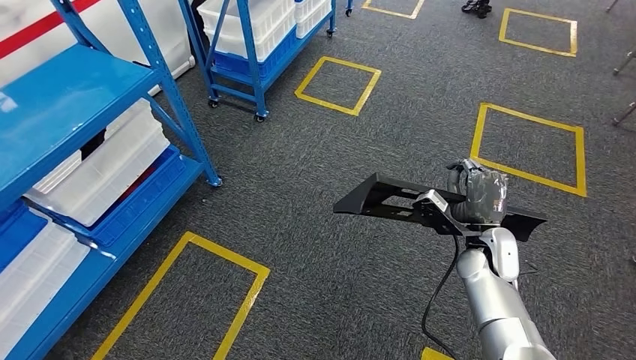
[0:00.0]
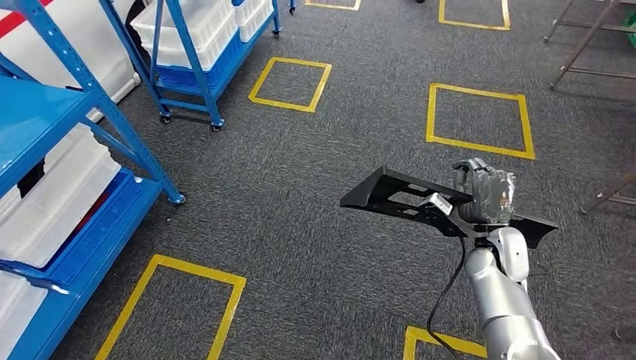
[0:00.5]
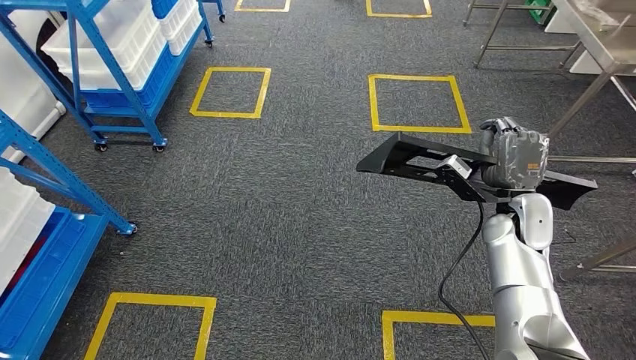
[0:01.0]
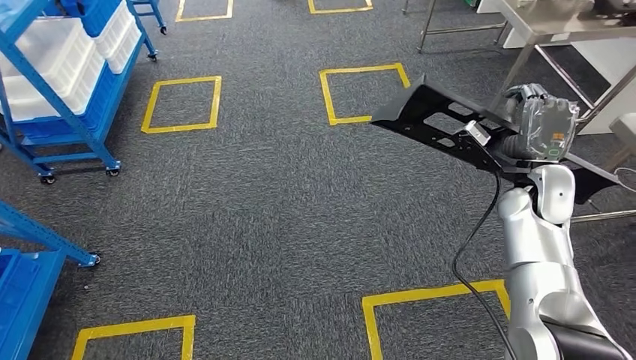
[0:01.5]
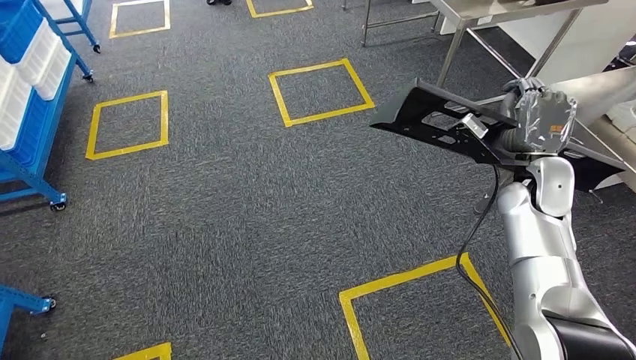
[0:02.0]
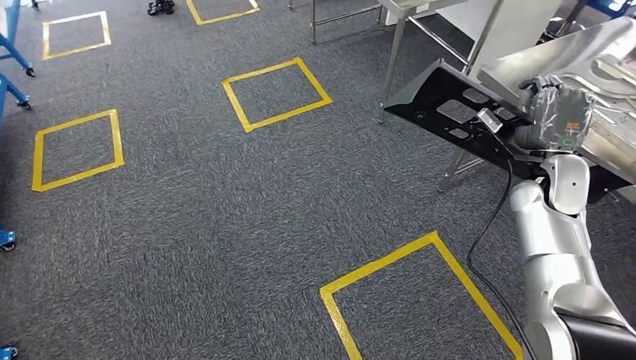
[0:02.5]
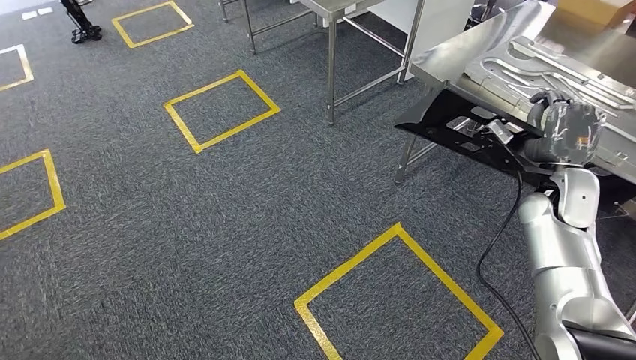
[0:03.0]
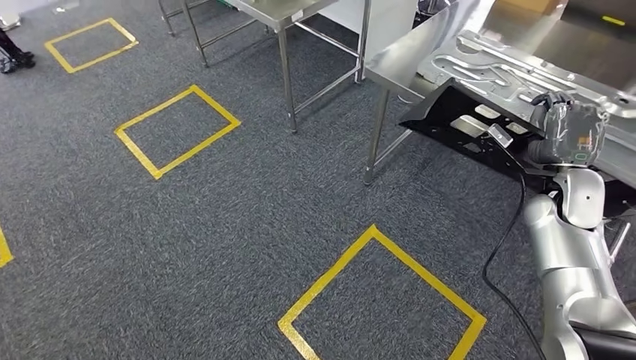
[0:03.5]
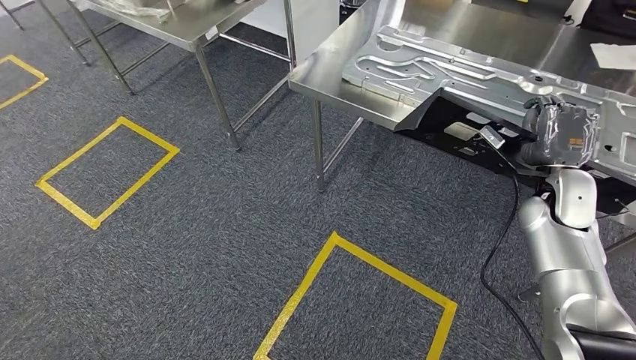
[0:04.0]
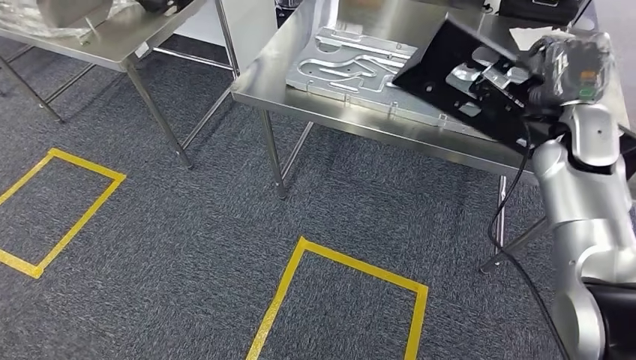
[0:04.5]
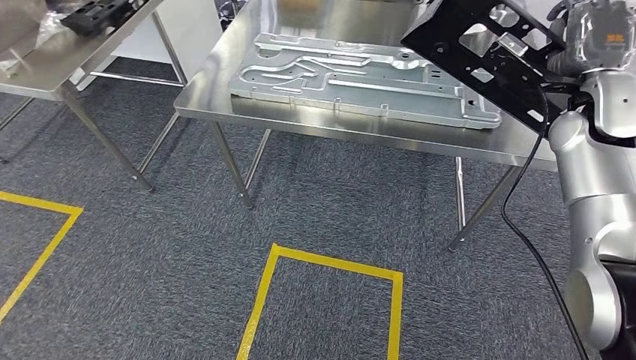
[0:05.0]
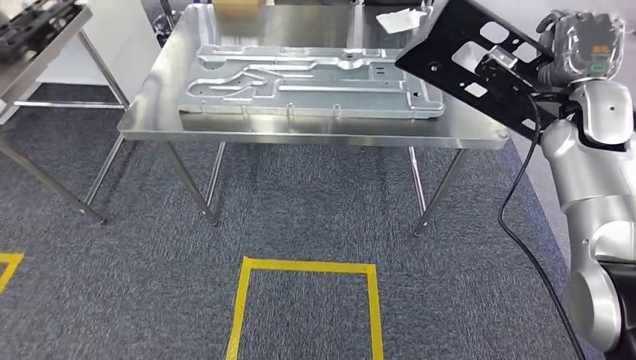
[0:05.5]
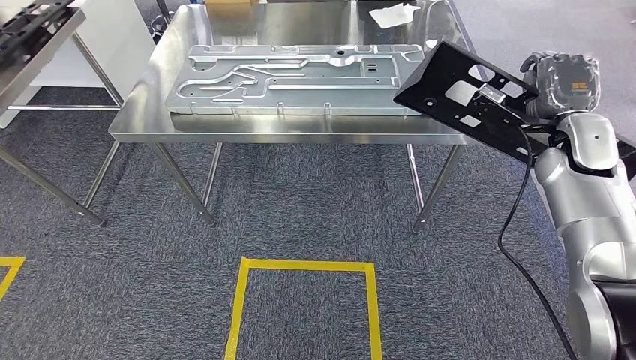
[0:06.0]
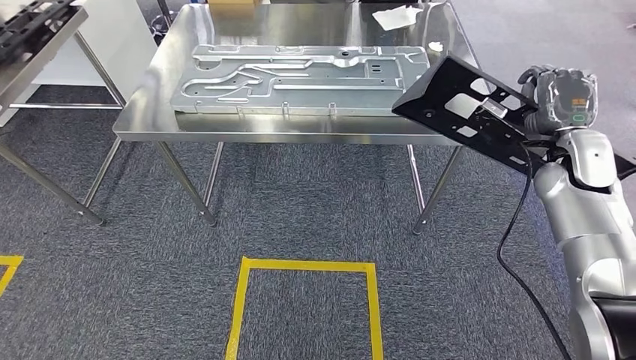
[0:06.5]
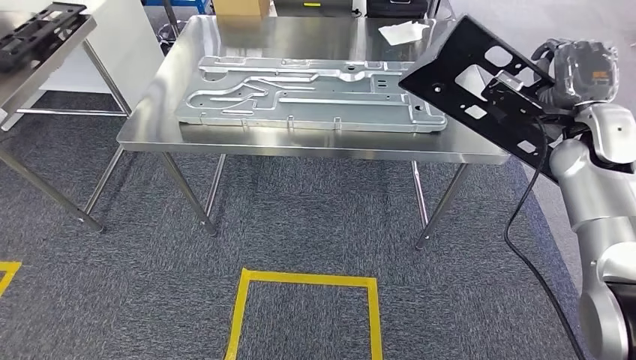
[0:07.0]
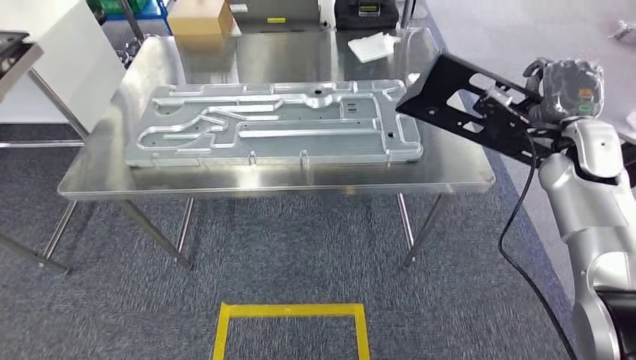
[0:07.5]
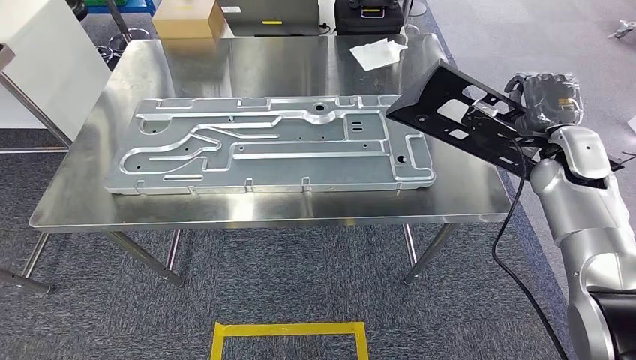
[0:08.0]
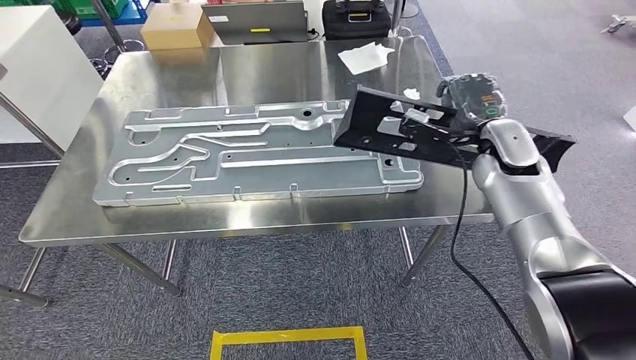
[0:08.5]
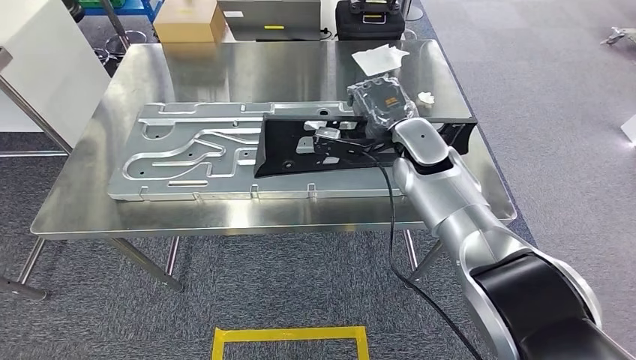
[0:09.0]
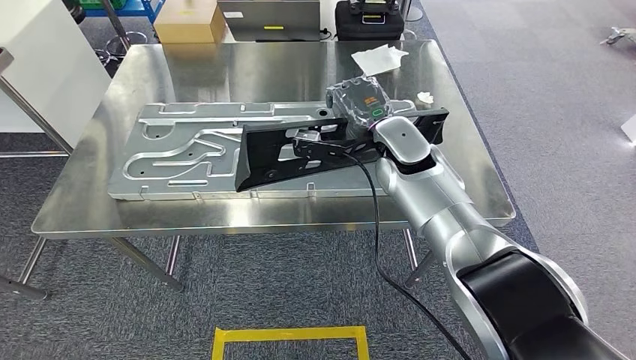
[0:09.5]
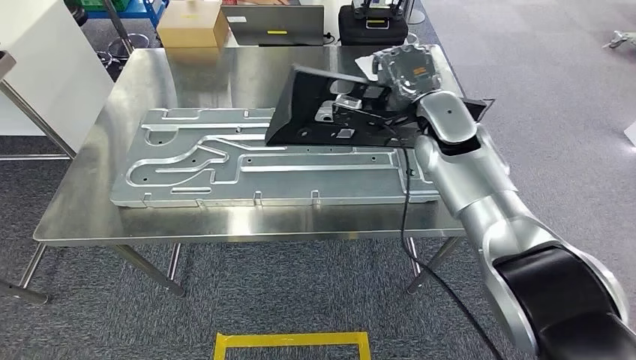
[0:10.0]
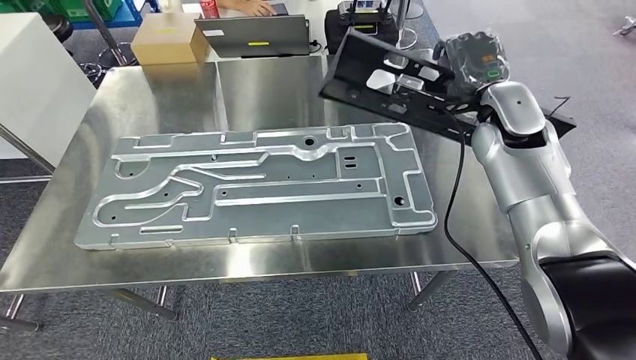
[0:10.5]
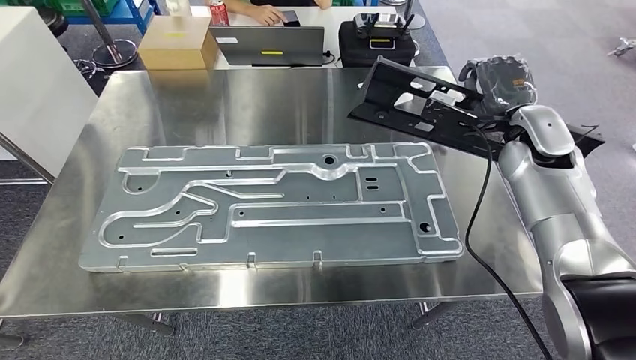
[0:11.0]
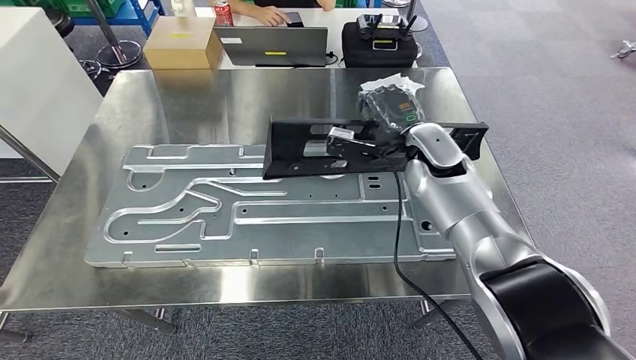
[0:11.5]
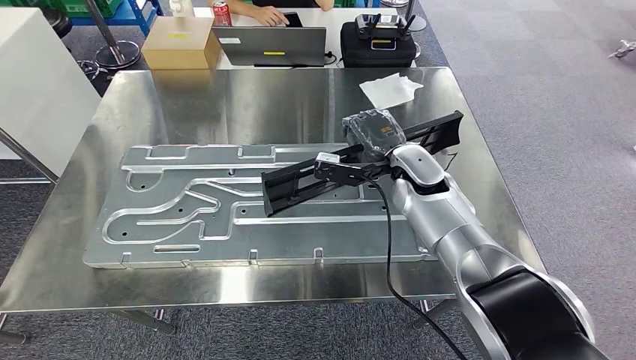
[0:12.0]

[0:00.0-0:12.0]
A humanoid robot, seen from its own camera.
Step, 0:00.0 to 0:08.5: Move the large material to the front of the workbench.

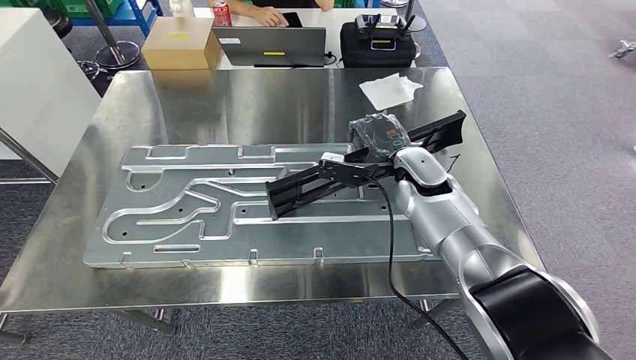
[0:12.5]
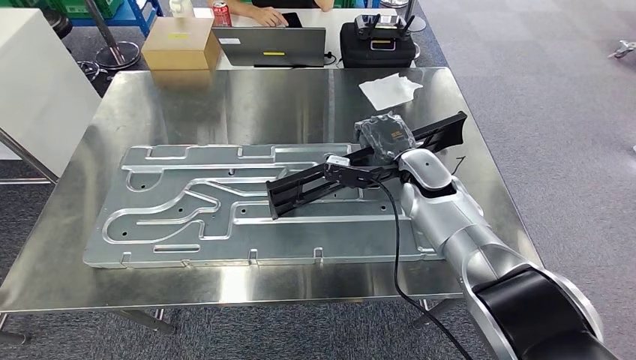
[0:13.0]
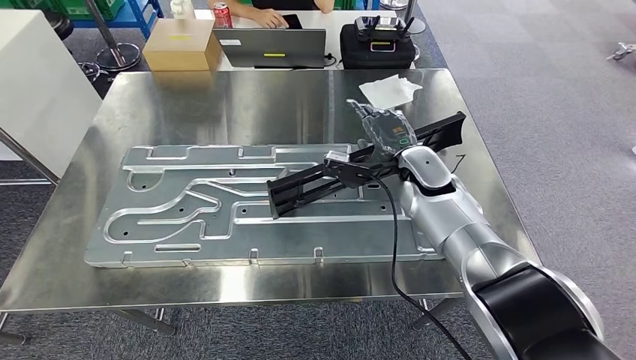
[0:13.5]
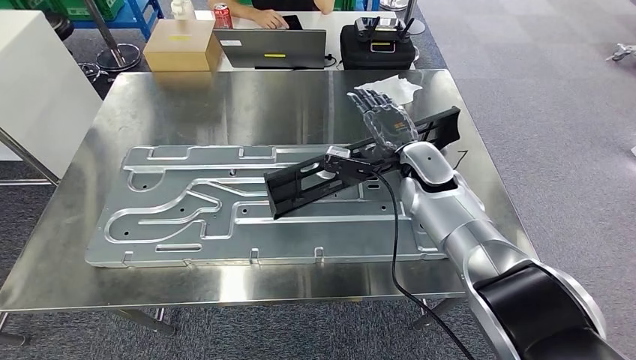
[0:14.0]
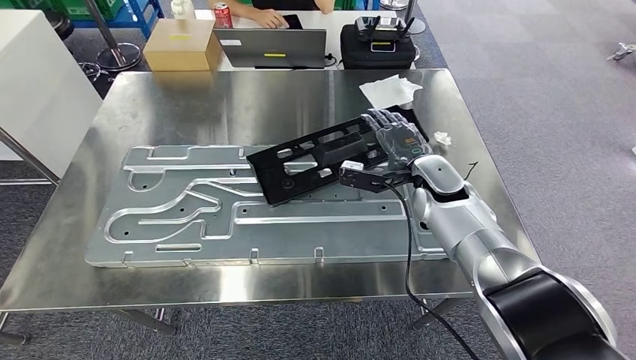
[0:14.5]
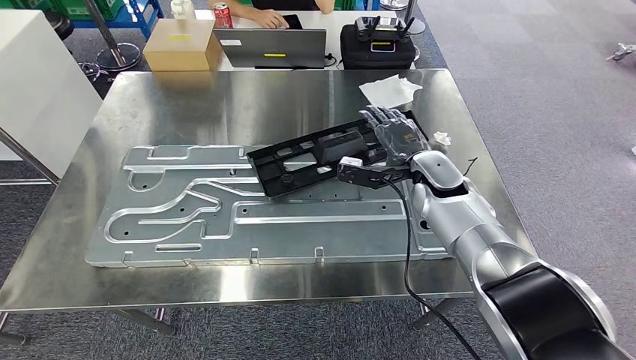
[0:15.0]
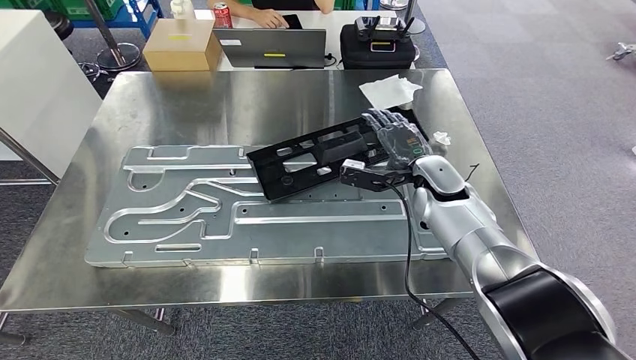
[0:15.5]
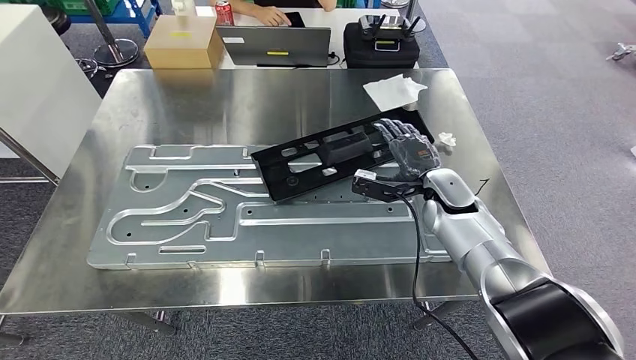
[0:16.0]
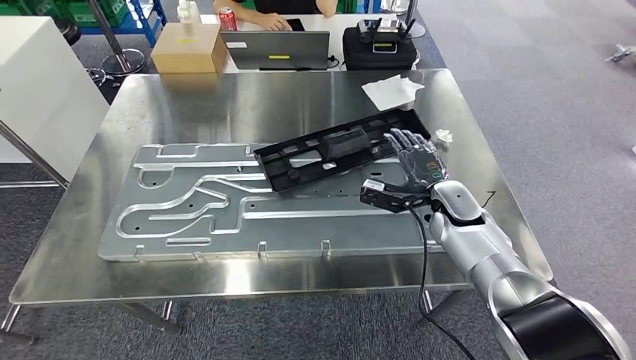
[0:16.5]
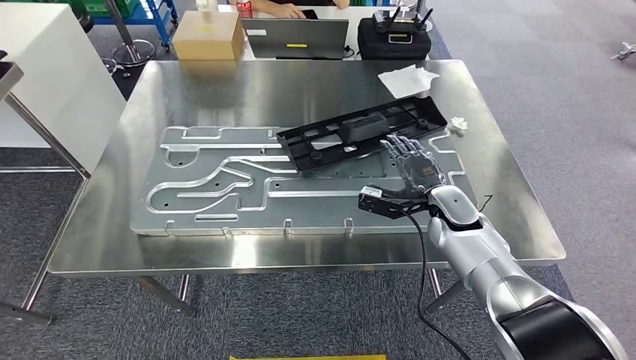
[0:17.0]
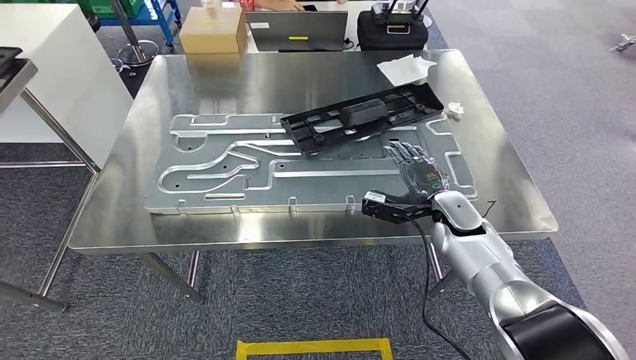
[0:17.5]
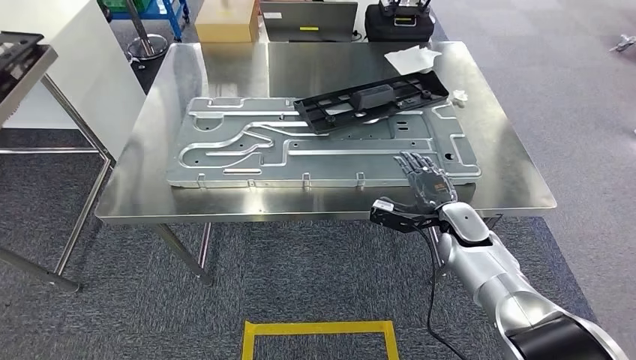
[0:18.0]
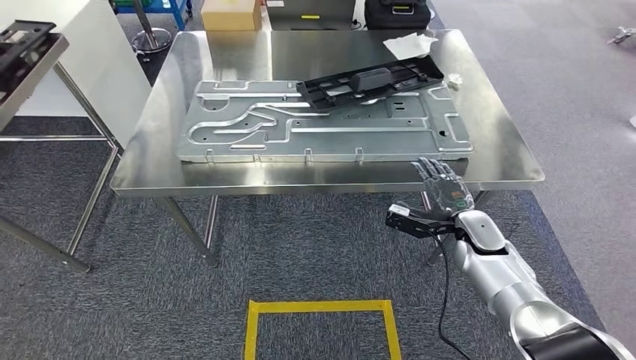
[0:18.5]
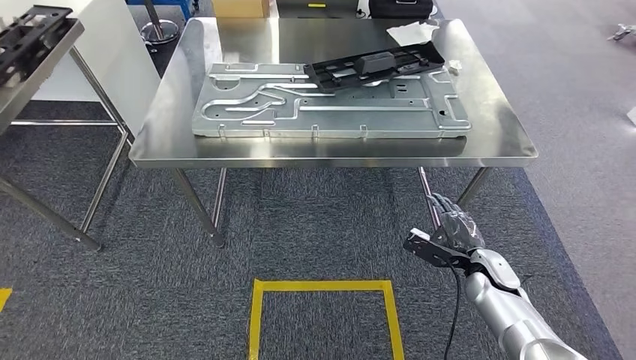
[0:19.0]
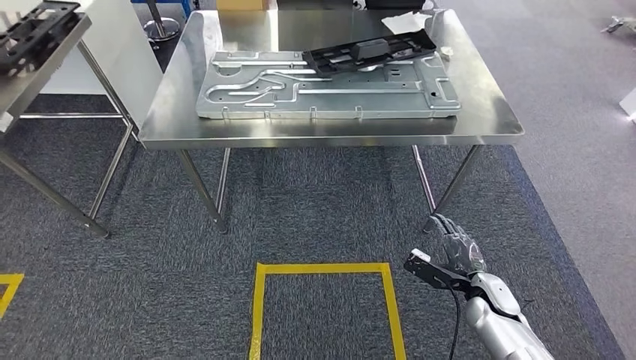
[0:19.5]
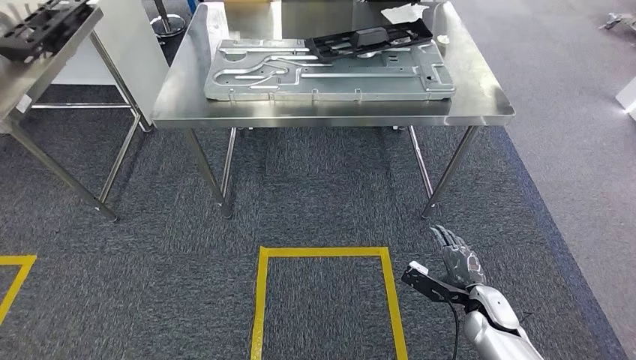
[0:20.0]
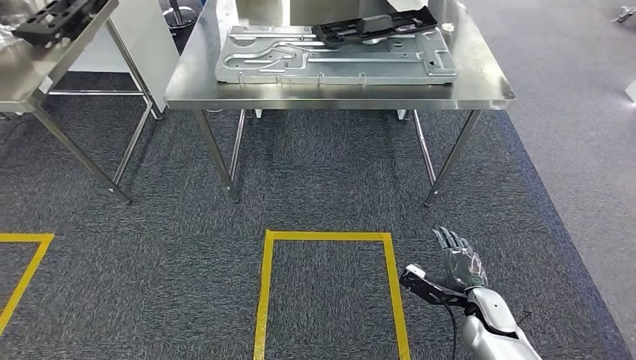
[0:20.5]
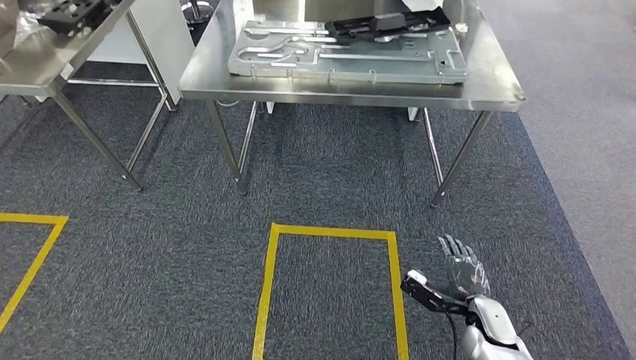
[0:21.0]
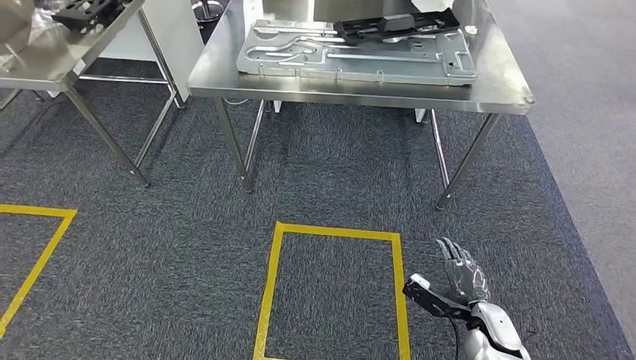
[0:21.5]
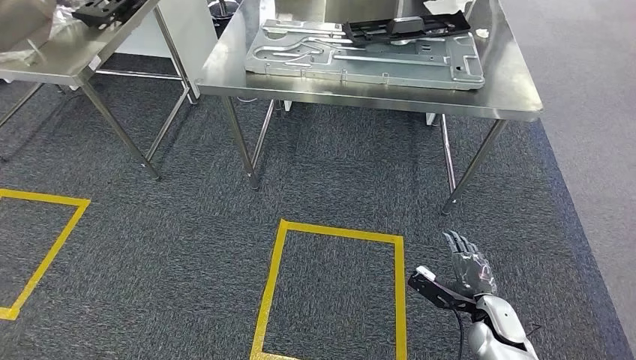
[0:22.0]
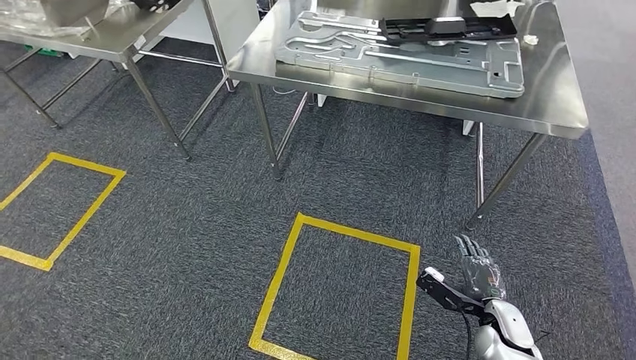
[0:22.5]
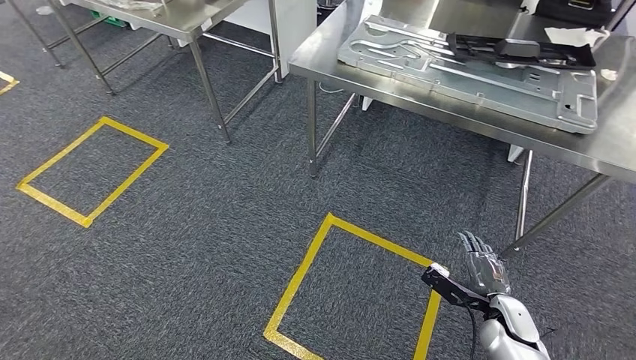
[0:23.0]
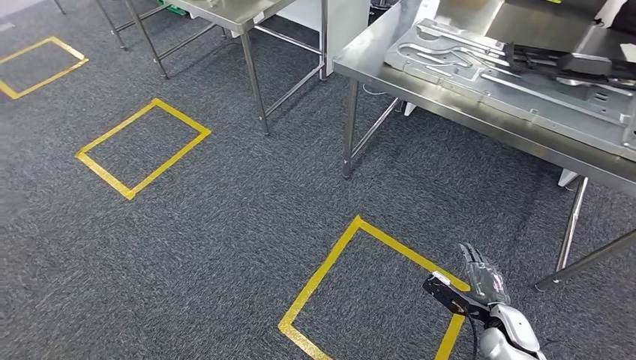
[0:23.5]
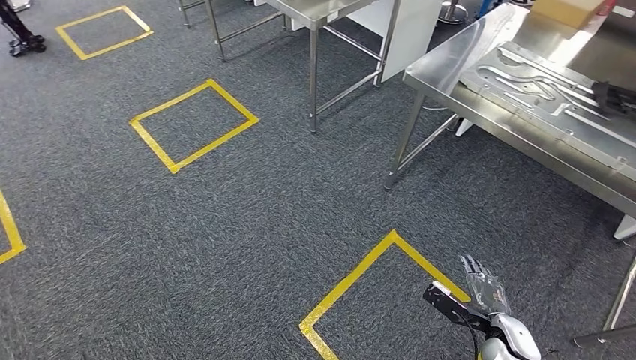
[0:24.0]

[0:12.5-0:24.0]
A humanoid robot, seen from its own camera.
Step, 0:12.5 to 0:18.5: Insert the large material into the corresponding hole on the workbench.
0:12.5 to 0:14.5: The hands stay close to where they were, moving slightly.
